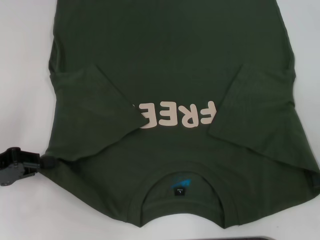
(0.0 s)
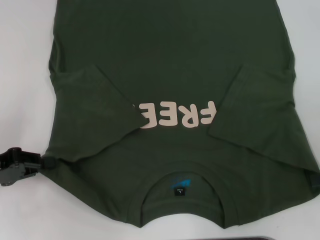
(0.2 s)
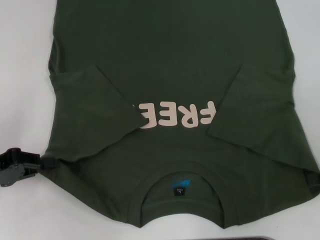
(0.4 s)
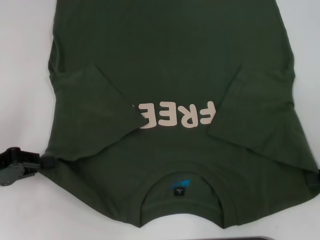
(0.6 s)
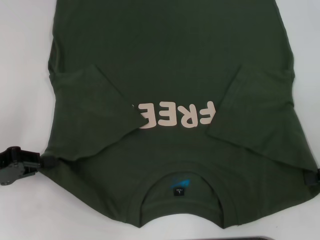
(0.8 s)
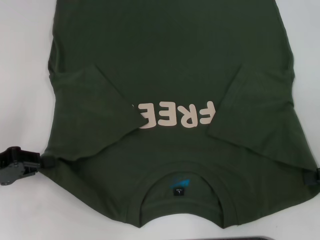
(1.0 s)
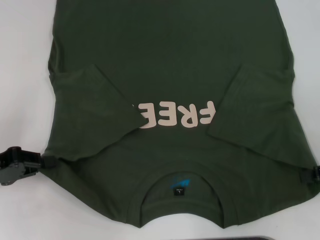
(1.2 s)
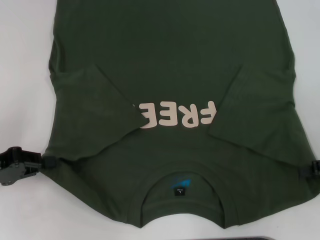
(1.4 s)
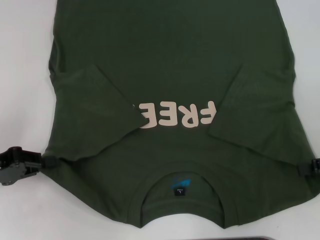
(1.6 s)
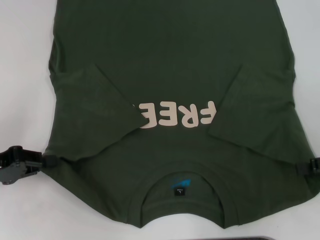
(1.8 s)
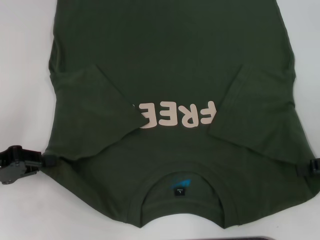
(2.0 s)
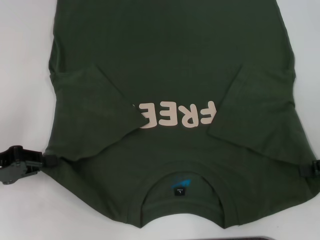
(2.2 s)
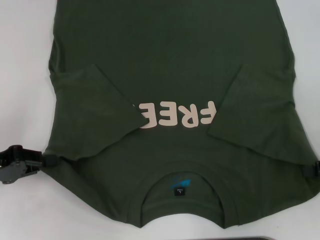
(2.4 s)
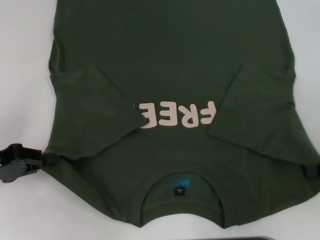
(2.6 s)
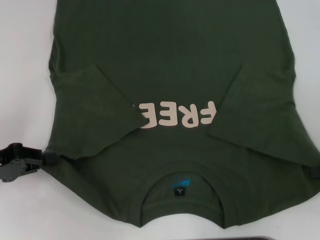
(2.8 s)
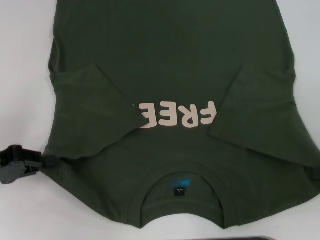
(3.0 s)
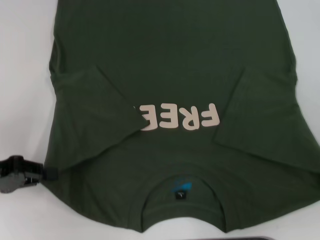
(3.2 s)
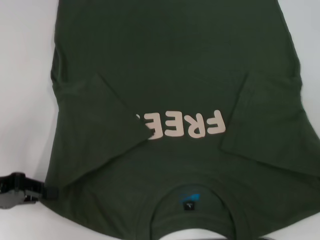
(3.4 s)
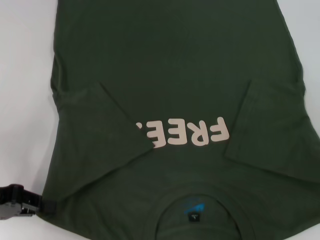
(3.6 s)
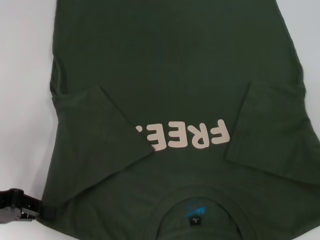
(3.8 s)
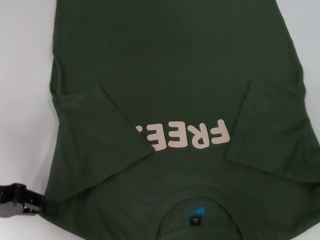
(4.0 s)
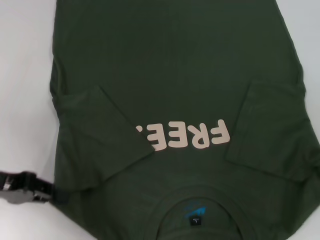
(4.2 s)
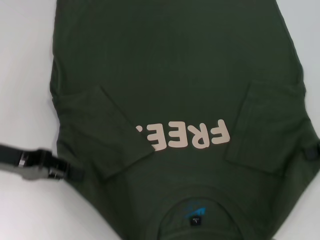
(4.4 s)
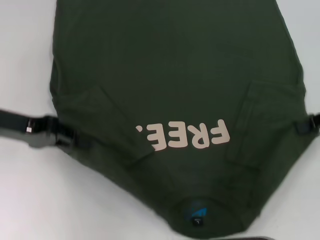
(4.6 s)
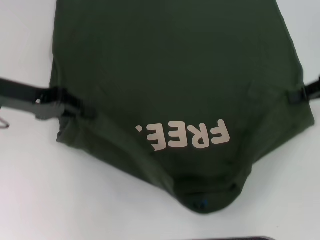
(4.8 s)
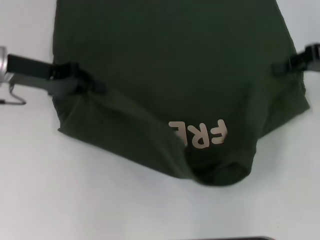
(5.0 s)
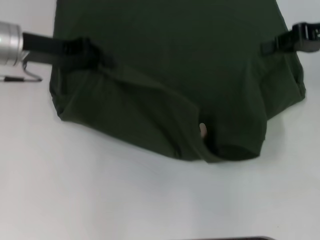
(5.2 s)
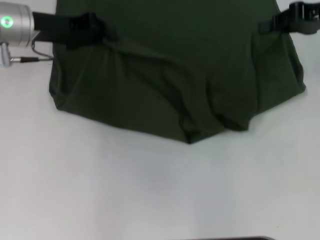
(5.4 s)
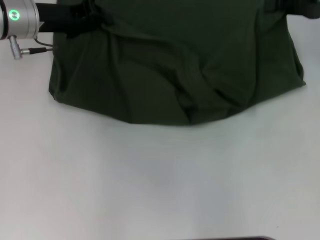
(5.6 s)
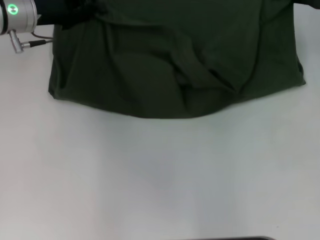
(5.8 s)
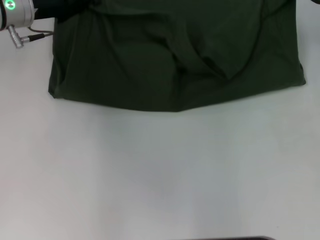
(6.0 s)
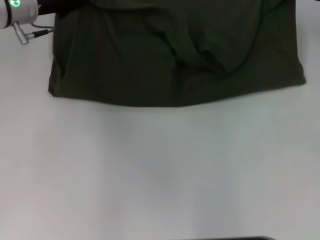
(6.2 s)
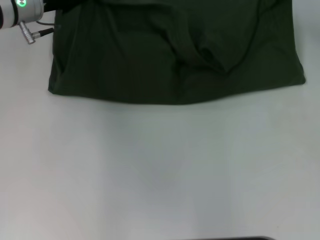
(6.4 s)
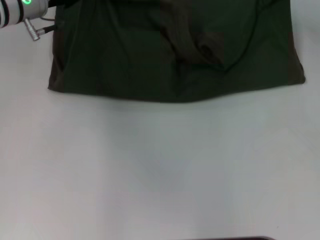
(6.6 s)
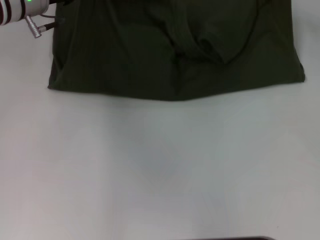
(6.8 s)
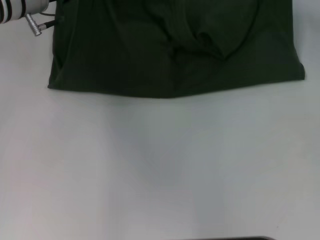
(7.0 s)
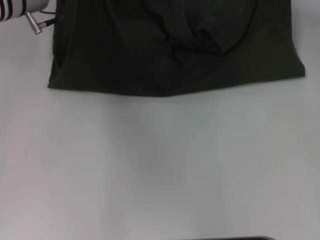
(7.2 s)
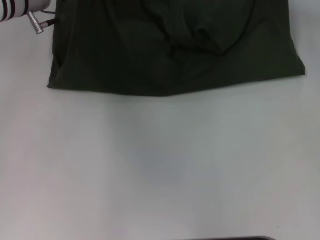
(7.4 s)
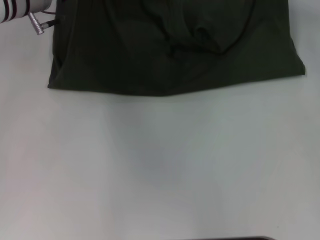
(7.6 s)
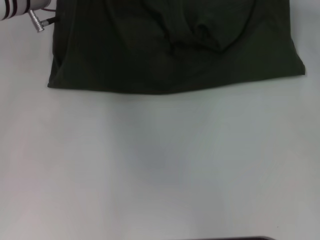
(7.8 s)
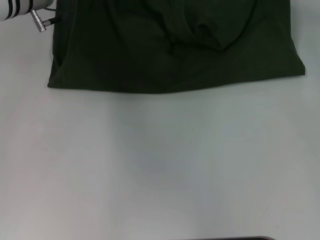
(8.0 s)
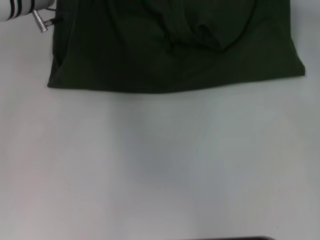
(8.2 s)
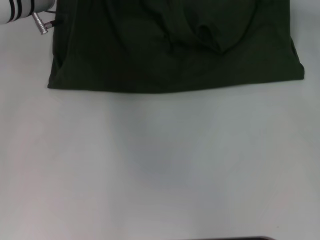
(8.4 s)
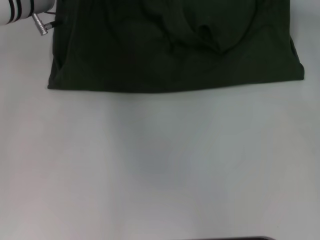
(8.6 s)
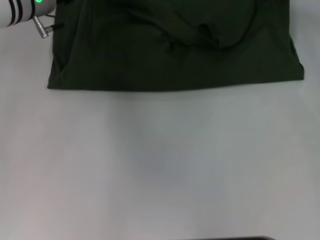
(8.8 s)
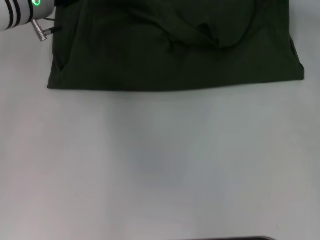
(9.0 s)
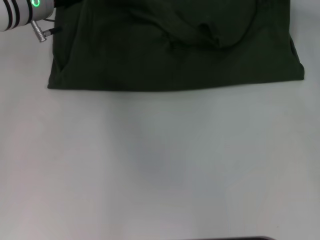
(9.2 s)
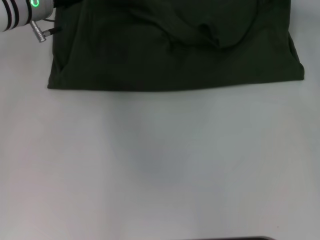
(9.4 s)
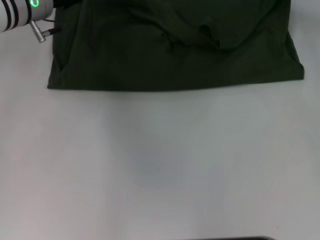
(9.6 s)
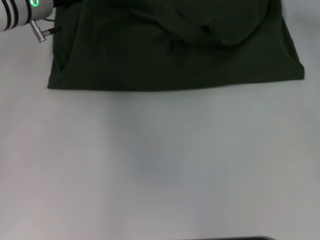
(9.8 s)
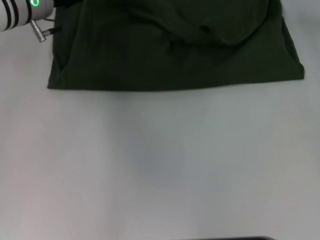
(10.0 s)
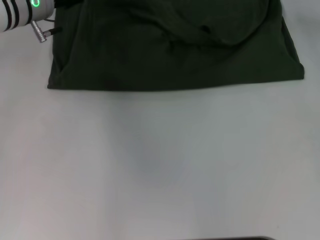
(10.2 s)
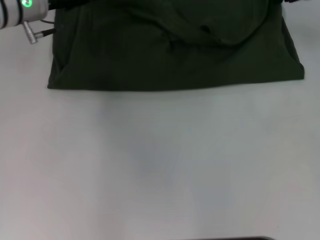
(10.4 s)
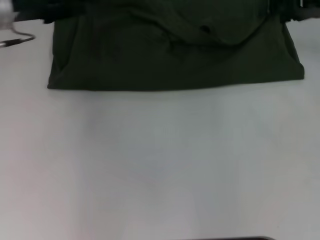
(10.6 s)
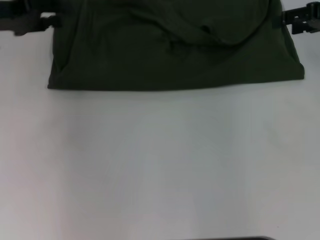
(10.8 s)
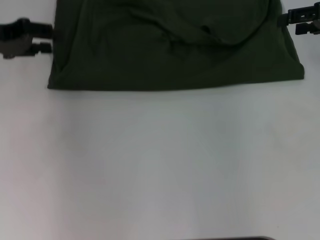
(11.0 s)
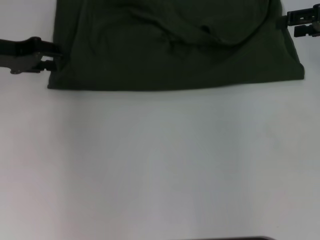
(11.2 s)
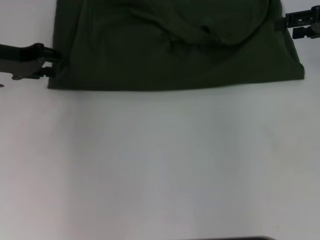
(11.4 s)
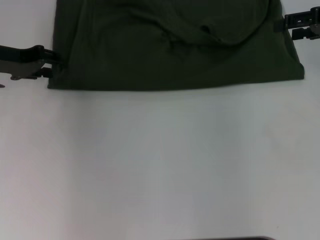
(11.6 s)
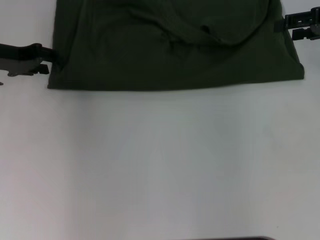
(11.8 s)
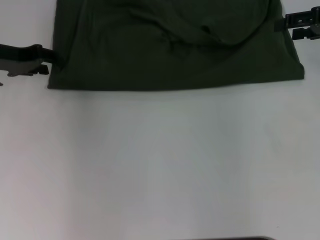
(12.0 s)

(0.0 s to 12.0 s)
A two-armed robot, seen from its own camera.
Step, 0.0 s - 3.0 s: Grab the bottom right corner with your right hand.
Step, 3.2 s - 10.0 s: Fold the clothes with your left hand.
Step, 3.2 s - 10.0 s: Fold the clothes with your right hand.
1.6 s - 3.0 s: The right gripper closes.
3.0 s - 4.4 s: The right gripper shifts by roughly 5 cm, while the left gripper moves roughly 5 cm.
4.4 s - 6.0 s: The left gripper moves forward and to the right, approximately 15 cm; the right gripper shifts roughly 15 cm forward and upward.
6.0 s - 7.6 s: The right gripper changes place by approximately 5 cm.
7.6 s - 9.0 s: The left gripper opens its fingers. Meanwhile the right gripper opens.
10.4 s - 12.0 s: The left gripper goes approximately 10 cm to the left. The right gripper goes roughly 5 cm backward.

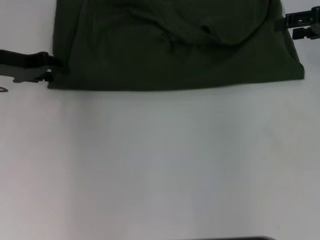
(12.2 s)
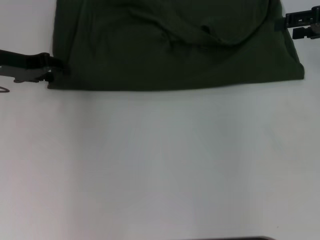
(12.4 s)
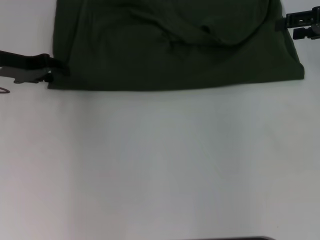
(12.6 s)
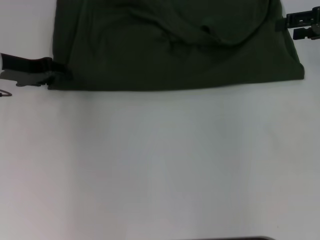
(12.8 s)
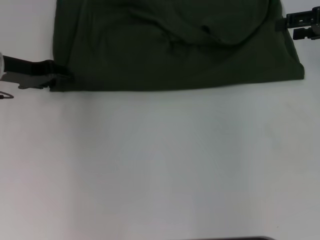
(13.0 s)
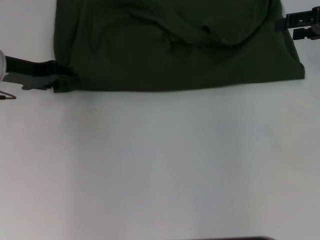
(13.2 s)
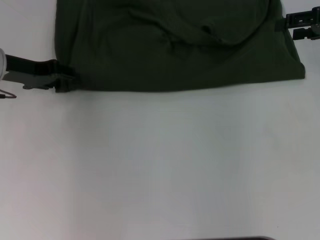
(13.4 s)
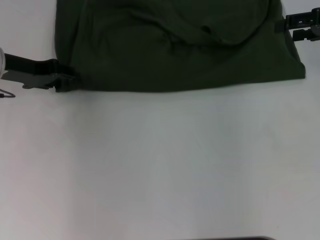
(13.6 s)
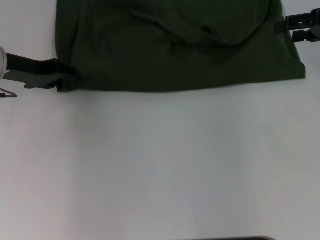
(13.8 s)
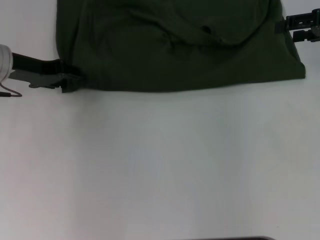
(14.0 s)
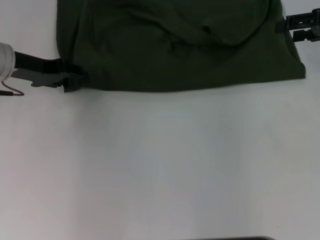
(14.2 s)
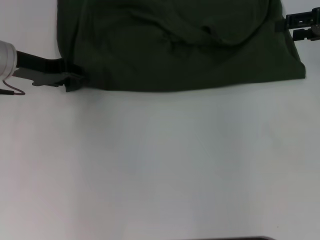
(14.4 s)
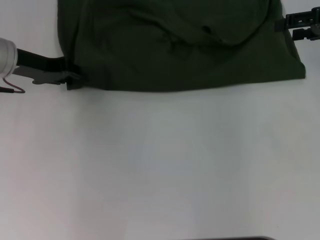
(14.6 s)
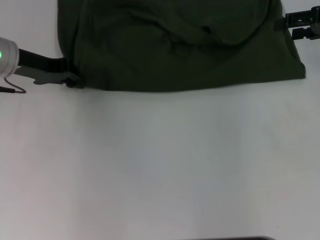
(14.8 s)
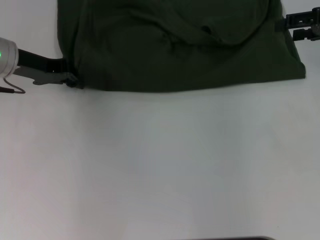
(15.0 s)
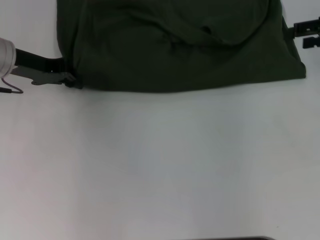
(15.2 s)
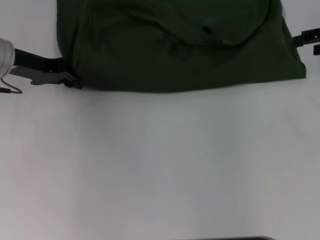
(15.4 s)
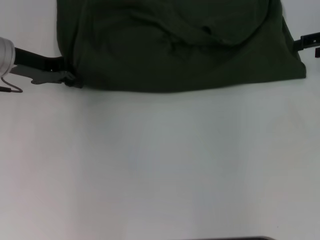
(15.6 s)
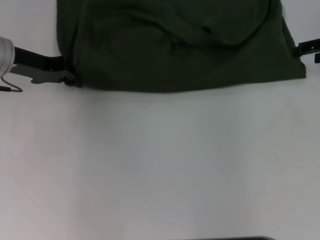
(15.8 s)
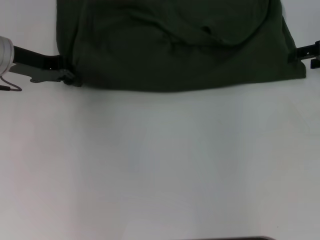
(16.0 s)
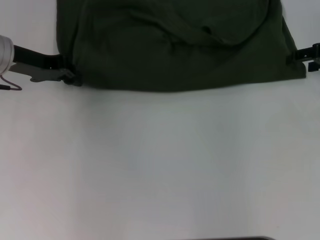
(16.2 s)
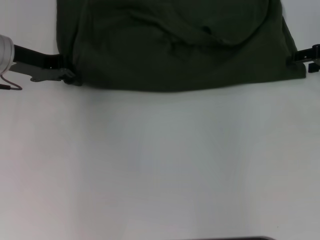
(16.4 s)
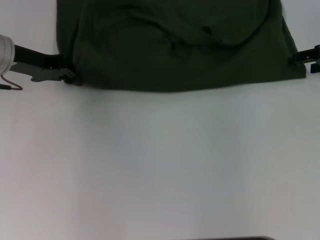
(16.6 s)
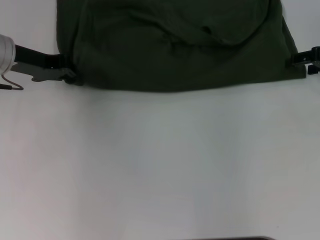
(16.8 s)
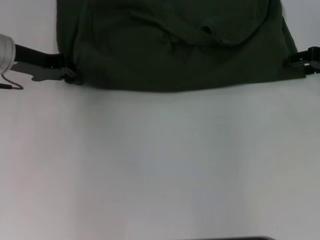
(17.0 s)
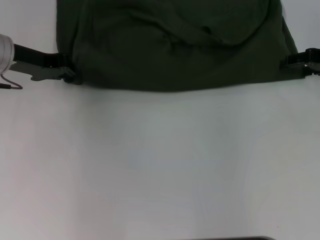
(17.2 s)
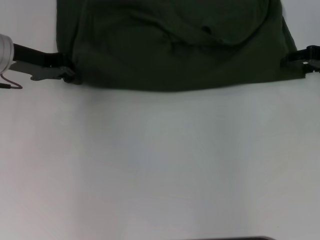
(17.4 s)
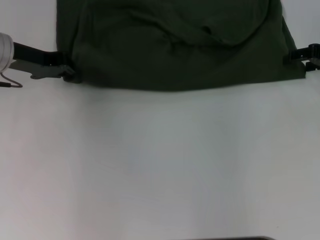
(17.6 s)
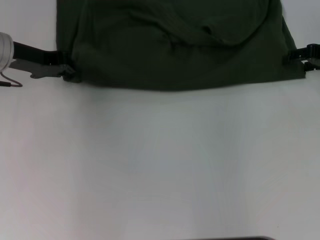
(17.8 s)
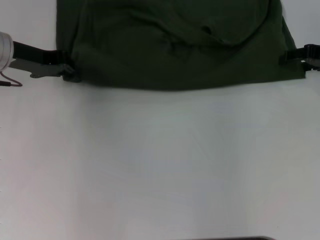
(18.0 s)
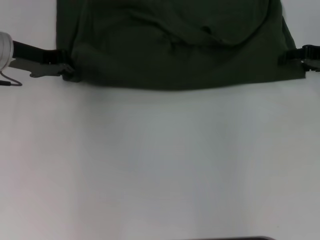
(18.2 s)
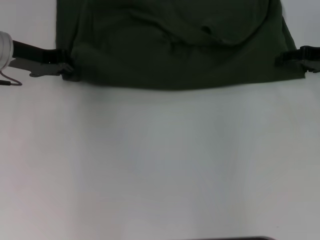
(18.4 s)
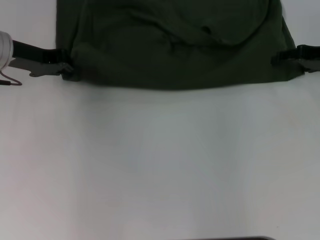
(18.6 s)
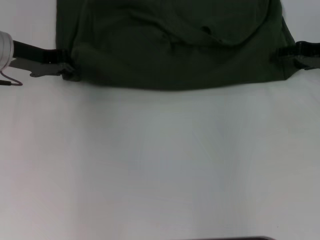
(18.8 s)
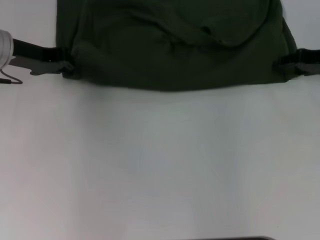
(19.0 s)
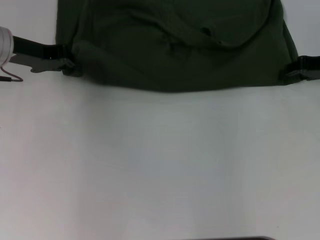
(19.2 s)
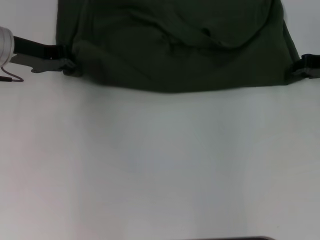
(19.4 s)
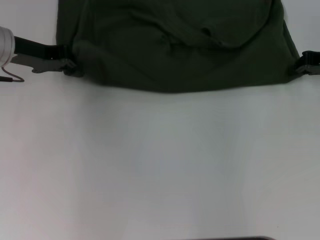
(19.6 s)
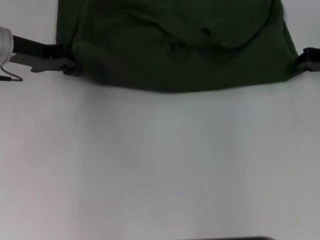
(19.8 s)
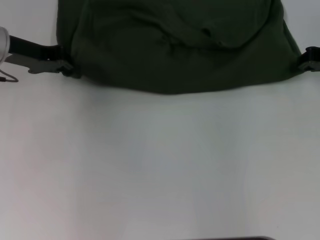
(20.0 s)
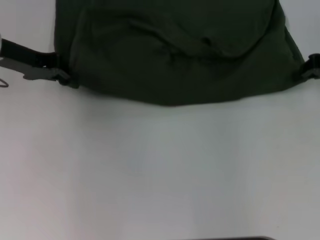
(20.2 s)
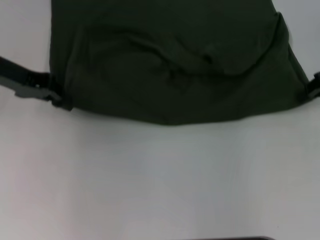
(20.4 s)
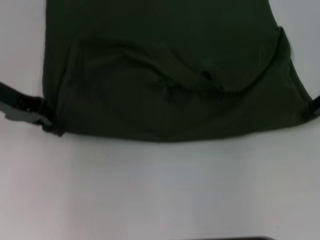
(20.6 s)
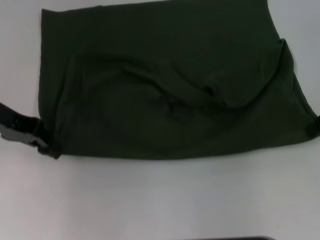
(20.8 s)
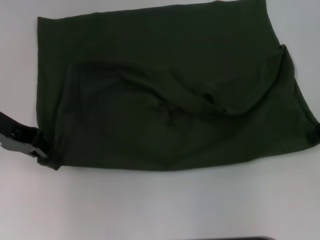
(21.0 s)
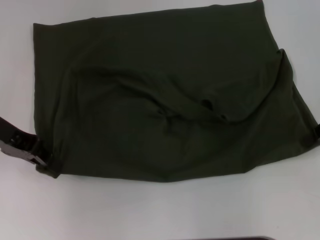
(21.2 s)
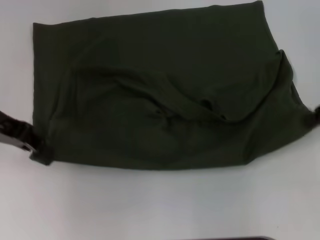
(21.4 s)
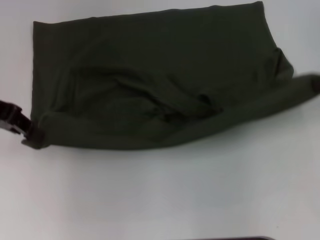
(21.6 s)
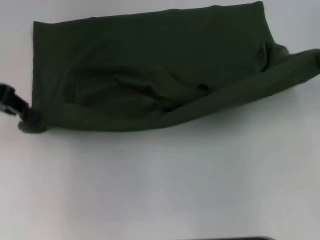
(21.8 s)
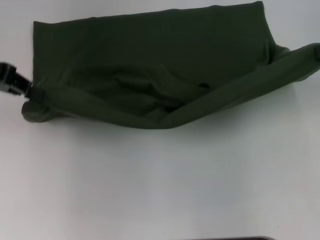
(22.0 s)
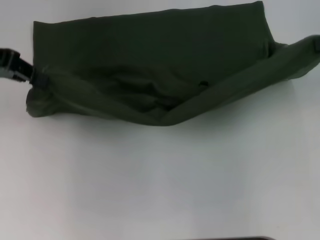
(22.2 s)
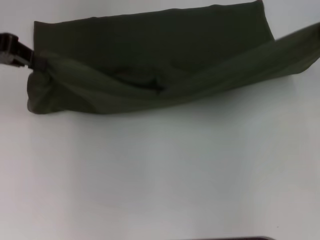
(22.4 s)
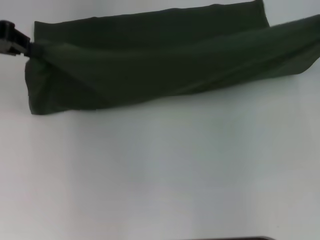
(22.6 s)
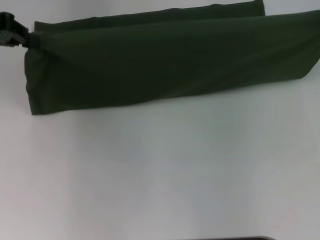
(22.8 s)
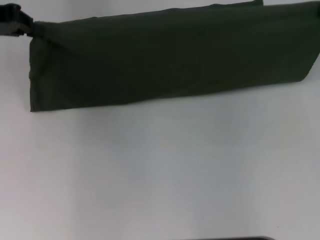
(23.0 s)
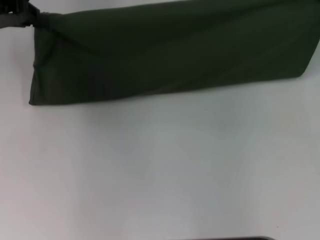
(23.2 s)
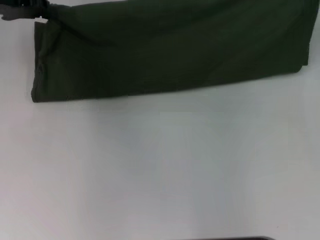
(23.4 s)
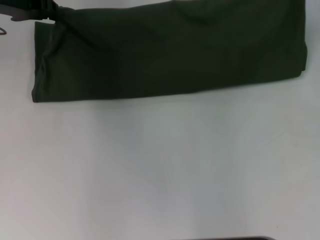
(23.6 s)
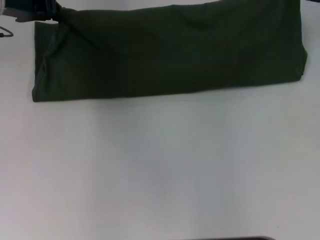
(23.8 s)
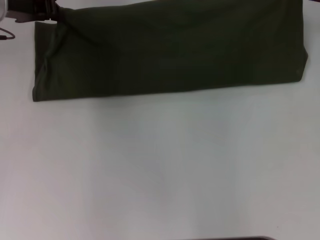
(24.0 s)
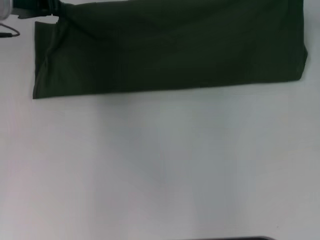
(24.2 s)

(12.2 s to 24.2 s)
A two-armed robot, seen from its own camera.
Step, 12.2 s - 21.4 s: Pull the clothes with your left hand.
Step, 12.2 s - 21.4 s: Pull the clothes with your right hand.
12.2 s - 13.8 s: There are only small adjustments of the grippers.
13.8 s - 15.2 s: The left gripper closes up.
15.2 s - 18.2 s: The grippers move only a little.
18.2 s - 19.8 s: The right gripper closes.
19.8 s - 21.2 s: The two grippers go roughly 5 cm backward.
21.2 s - 22.6 s: The right gripper is displaced upward by some 10 cm; the left gripper travels upward and forward by approximately 10 cm.
22.6 s - 24.2 s: The left gripper travels forward, to the right and downward by some 10 cm. Meanwhile the right gripper heads forward and downward, covering approximately 10 cm.
